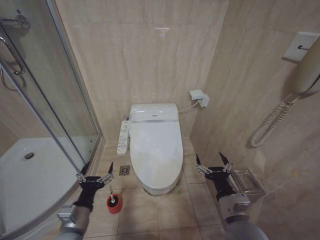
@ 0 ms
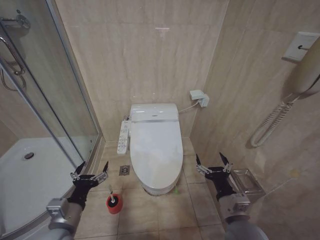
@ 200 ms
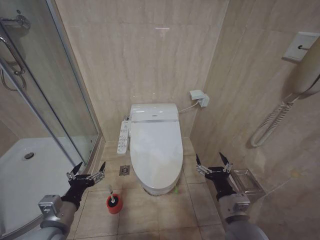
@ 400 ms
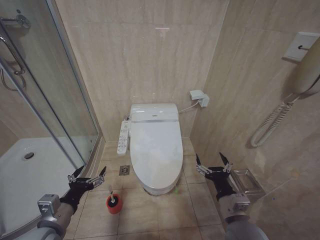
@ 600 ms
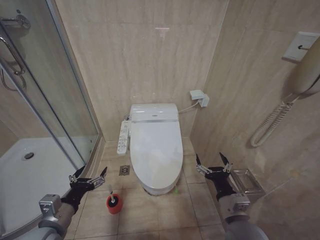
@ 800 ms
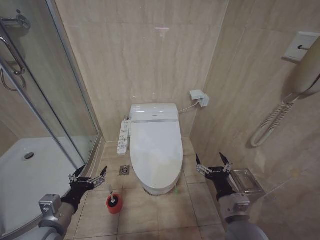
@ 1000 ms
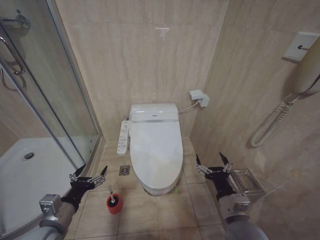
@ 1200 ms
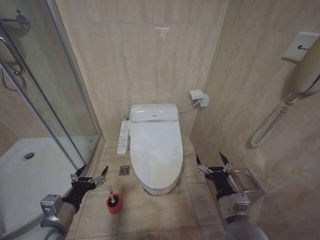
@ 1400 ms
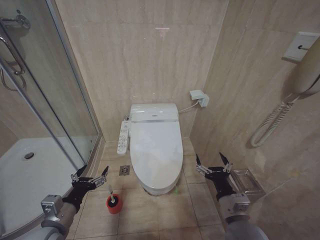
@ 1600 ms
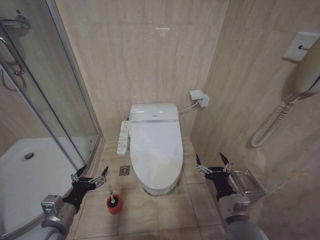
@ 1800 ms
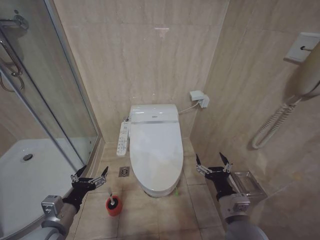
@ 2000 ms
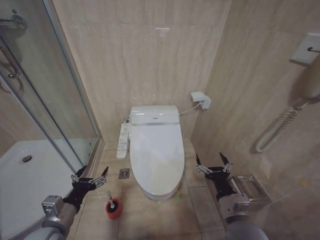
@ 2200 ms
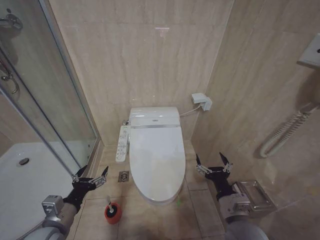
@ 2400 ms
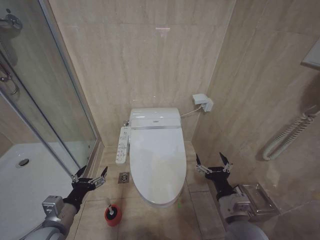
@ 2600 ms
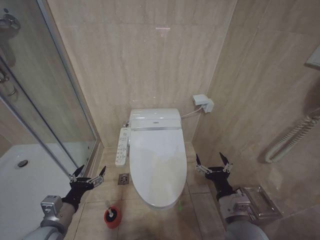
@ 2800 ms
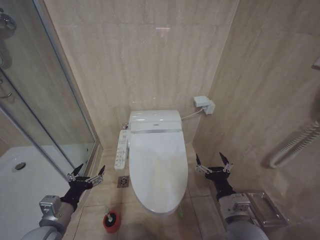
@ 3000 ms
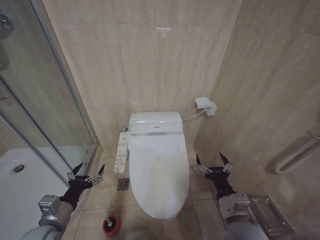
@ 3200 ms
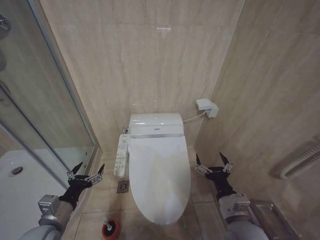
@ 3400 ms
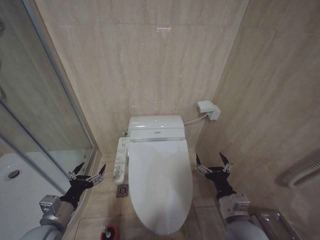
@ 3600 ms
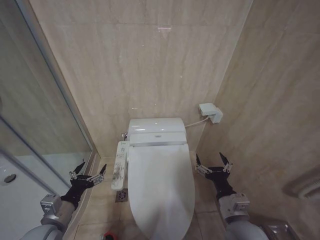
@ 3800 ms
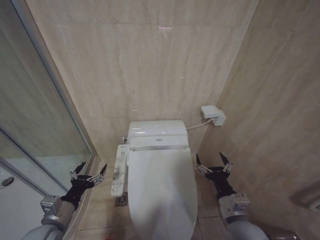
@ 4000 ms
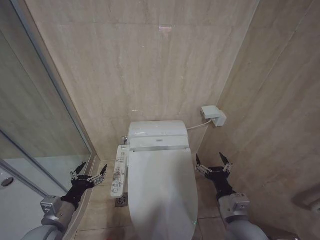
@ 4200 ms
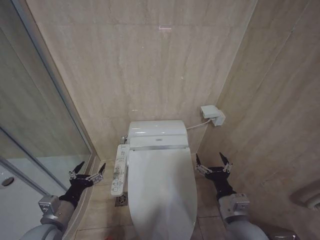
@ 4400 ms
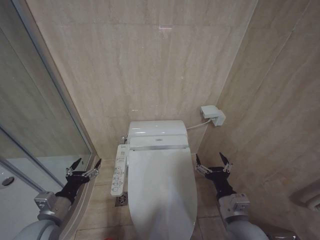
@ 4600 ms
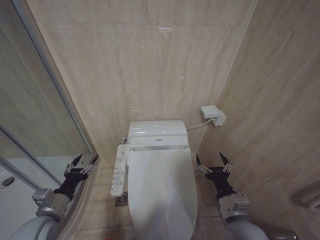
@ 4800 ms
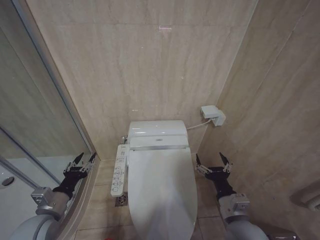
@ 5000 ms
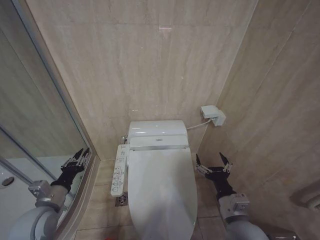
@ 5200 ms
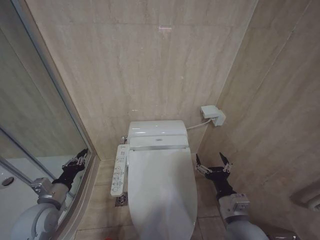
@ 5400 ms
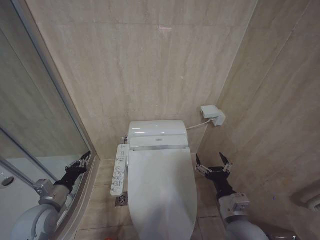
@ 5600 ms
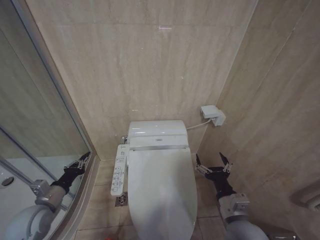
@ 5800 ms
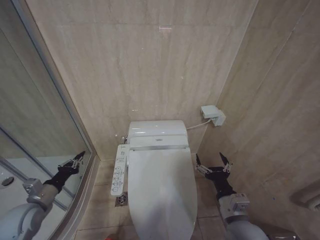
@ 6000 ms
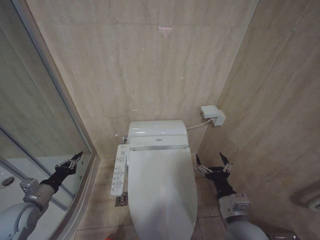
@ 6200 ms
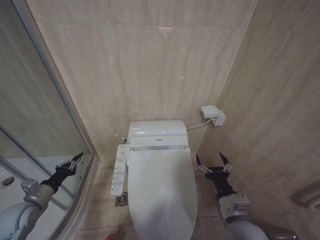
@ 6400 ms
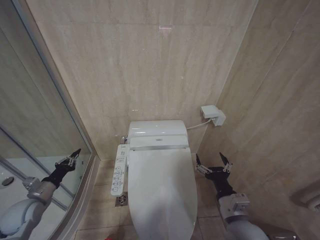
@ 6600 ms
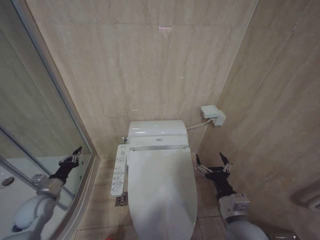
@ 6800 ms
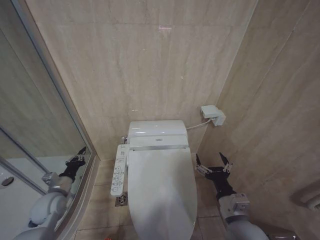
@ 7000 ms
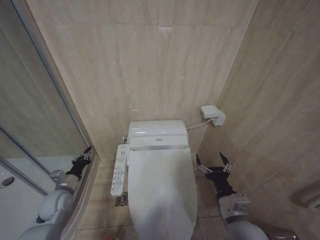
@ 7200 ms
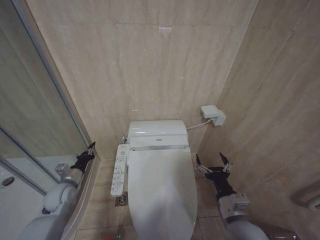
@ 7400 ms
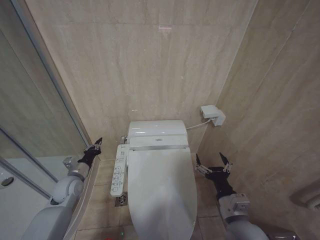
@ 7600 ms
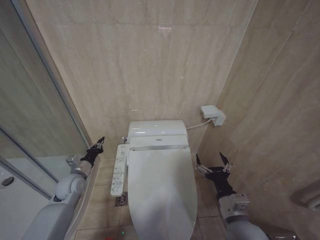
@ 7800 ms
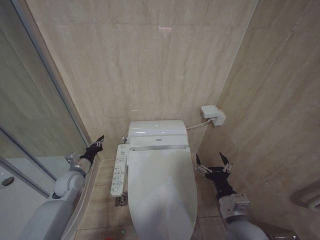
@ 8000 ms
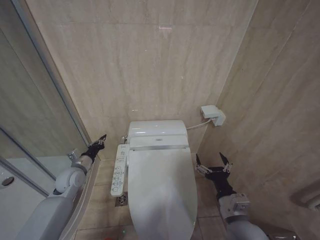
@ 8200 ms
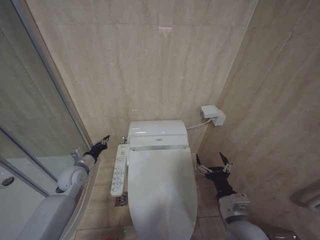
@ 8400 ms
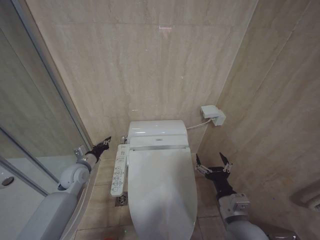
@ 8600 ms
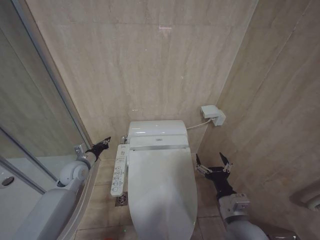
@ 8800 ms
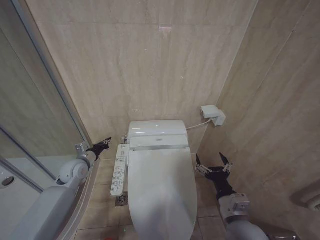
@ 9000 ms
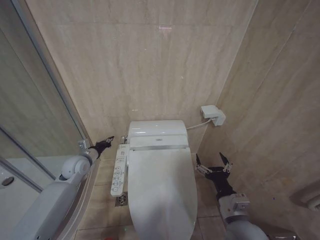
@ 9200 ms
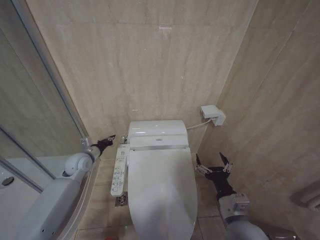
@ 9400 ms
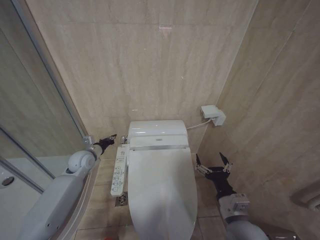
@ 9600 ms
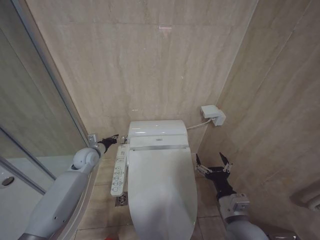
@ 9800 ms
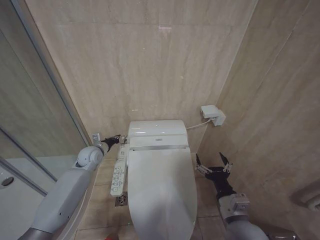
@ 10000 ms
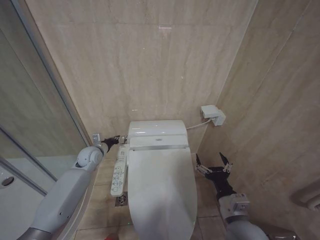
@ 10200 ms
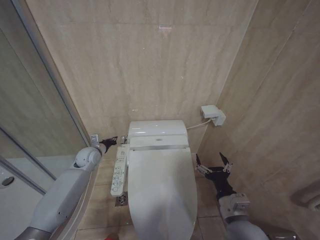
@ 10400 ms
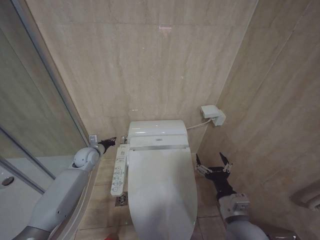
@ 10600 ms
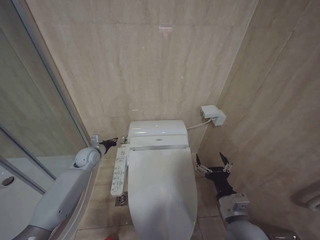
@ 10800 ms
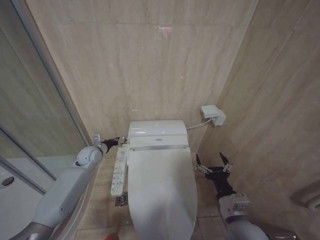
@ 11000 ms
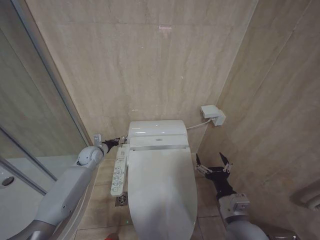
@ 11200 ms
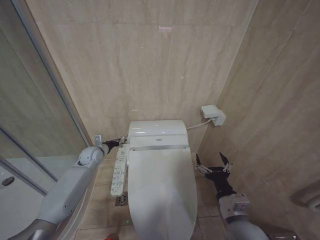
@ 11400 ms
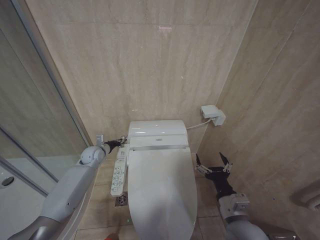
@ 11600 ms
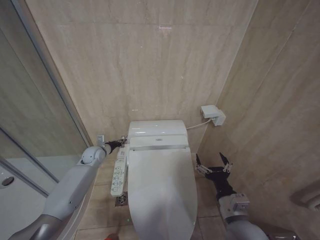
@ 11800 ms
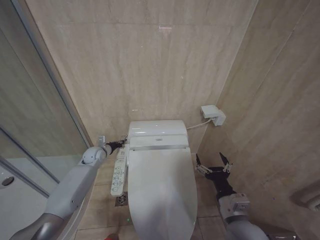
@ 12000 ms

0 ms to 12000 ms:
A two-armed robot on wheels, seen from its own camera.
Task of the whole recording: Open the toilet lid, clean the toilet bowl with a toilet brush, close the toilet lid, and flush.
0 ms to 1600 ms: The left gripper moves about 5 cm.
1600 ms to 3000 ms: There are only small adjustments of the grippers.
3000 ms to 4400 ms: Neither gripper changes place.
4400 ms to 6000 ms: The left gripper heads to the left and forward, covering about 10 cm, and closes.
6000 ms to 7600 ms: The left gripper heads forward, covering about 10 cm.
7600 ms to 9000 ms: The left gripper shifts by about 5 cm.
9000 ms to 10400 ms: The left gripper is displaced forward by approximately 5 cm.
10400 ms to 12000 ms: There are only small adjustments of the grippers.

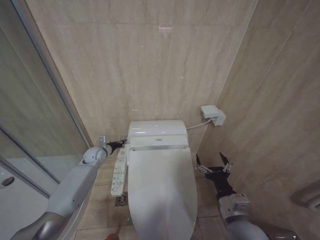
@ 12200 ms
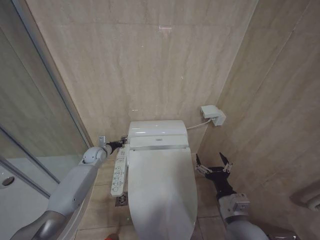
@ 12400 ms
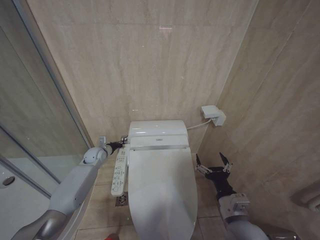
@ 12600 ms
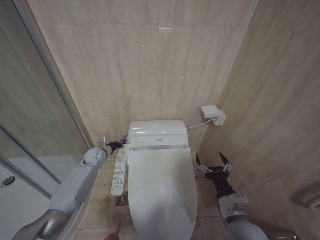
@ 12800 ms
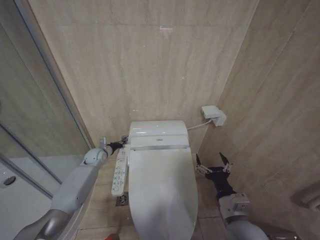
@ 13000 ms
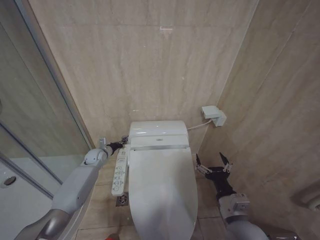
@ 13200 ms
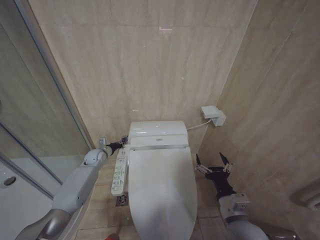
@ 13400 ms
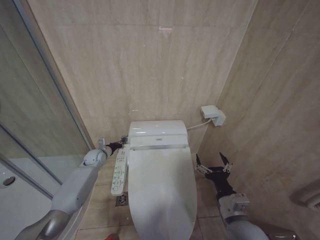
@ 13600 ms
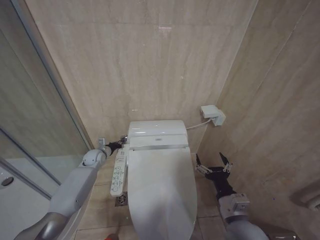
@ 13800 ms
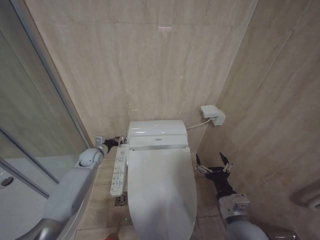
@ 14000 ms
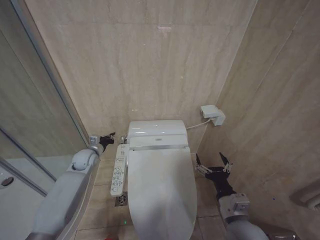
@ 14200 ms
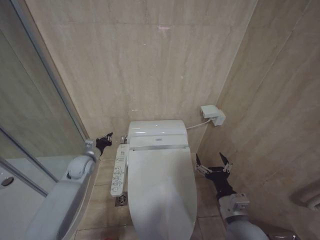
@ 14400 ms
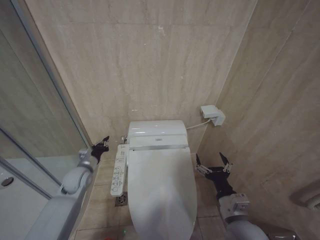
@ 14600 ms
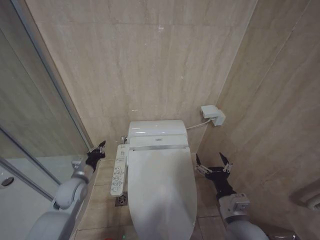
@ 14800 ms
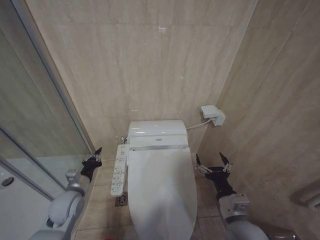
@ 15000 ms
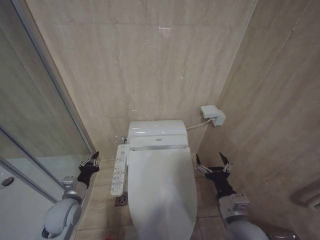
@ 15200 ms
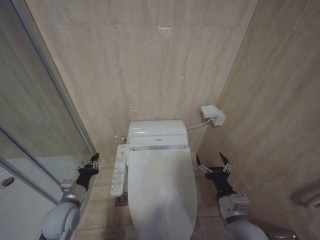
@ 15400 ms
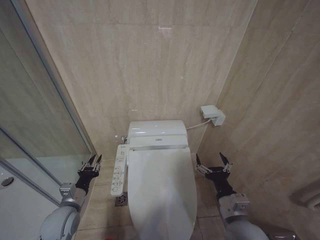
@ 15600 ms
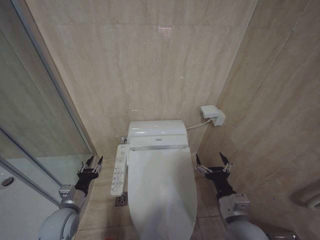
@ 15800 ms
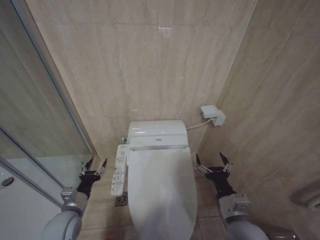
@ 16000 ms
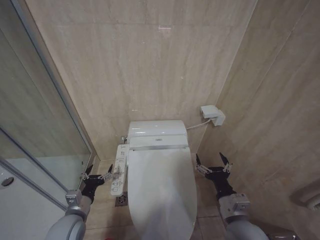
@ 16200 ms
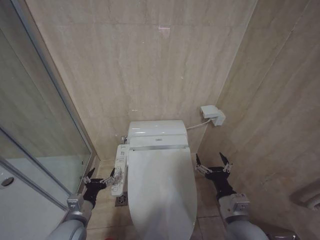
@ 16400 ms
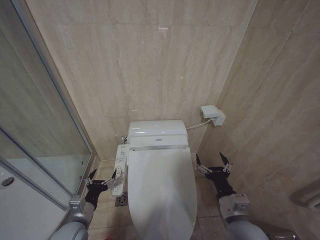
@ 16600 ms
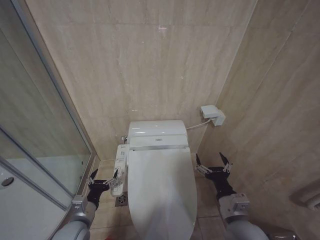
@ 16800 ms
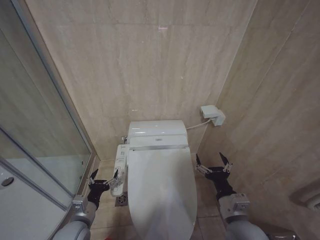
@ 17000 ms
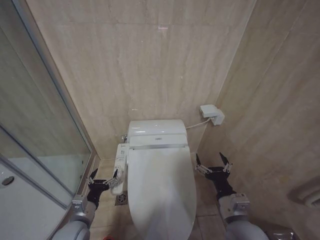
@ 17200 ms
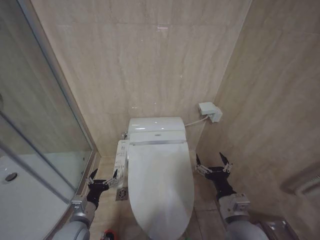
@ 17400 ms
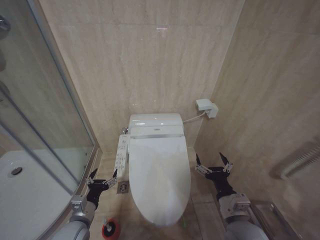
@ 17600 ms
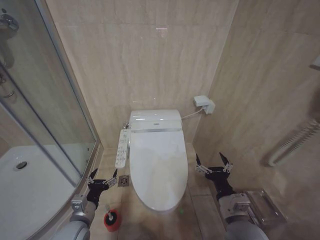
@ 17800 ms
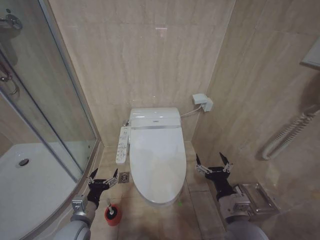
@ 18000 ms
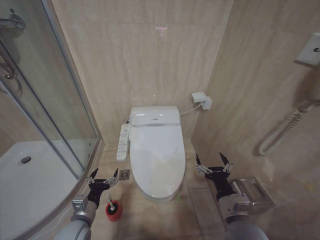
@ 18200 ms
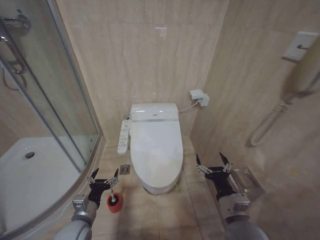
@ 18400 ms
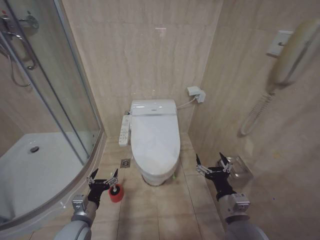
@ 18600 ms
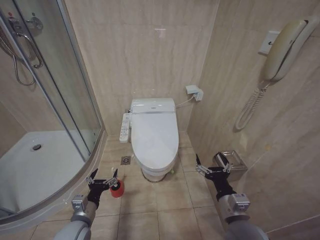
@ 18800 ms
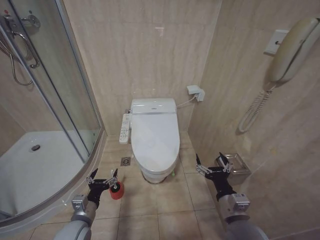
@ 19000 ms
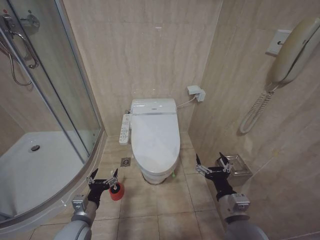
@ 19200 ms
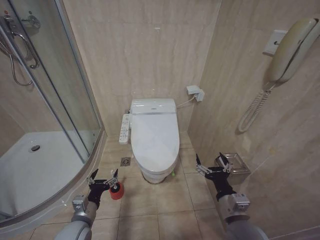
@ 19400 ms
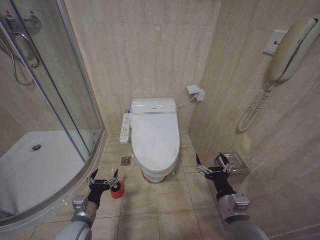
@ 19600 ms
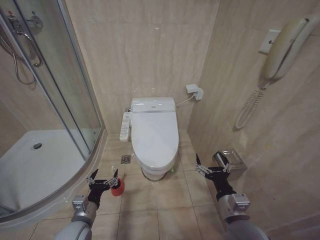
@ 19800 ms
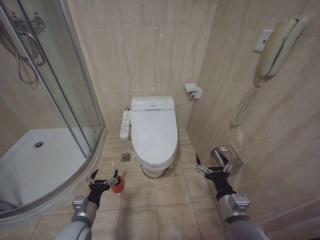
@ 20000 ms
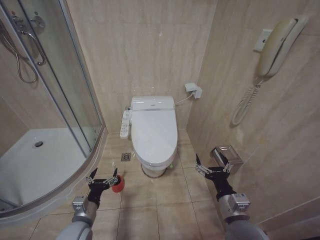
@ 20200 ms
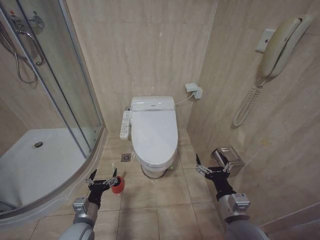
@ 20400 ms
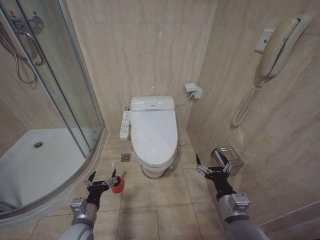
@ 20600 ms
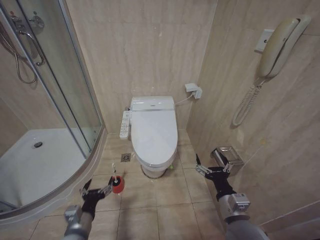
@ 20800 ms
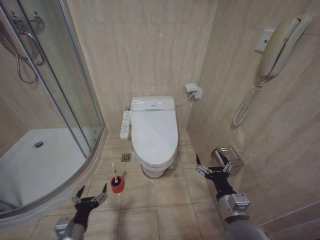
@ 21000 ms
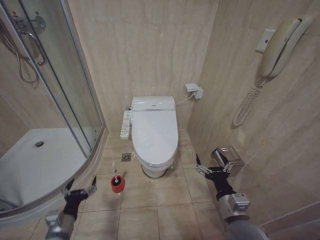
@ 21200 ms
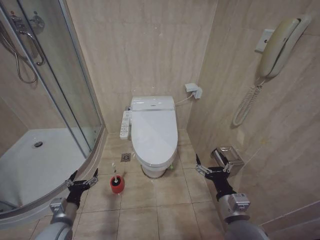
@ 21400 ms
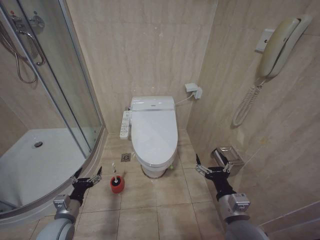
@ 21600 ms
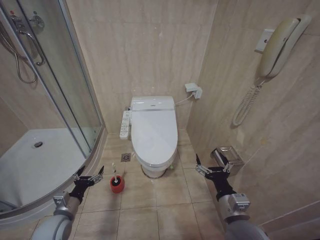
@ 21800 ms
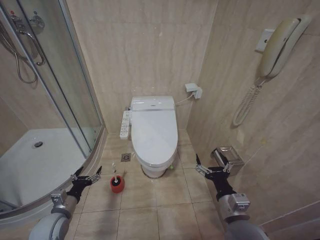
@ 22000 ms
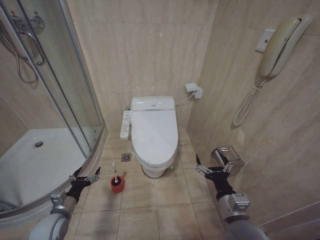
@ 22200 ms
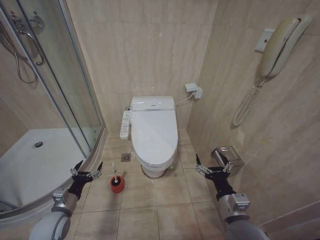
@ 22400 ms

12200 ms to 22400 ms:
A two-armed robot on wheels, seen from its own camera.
Task of the whole recording: Open the toilet lid, clean the toilet bowl with a toilet brush, close the toilet lid, and flush.
12200 ms to 13600 ms: There are only small adjustments of the grippers.
13600 ms to 15200 ms: The left gripper goes roughly 25 cm backward.
15200 ms to 16600 ms: The left gripper travels backward by some 5 cm, and opens up.
16600 ms to 19400 ms: Both grippers stay about where they are.
19400 ms to 21000 ms: The left gripper is displaced backward by some 5 cm.
21000 ms to 22400 ms: The left gripper heads forward and to the left, covering approximately 15 cm.
